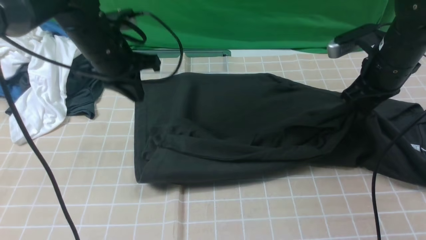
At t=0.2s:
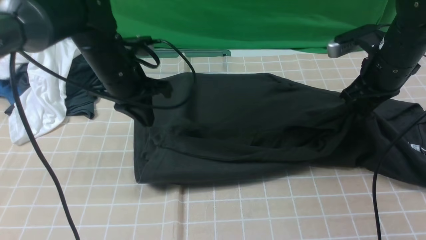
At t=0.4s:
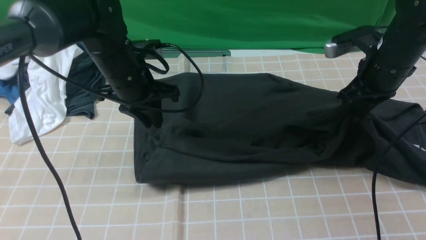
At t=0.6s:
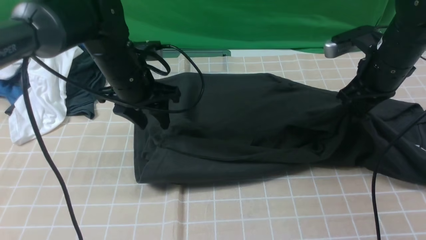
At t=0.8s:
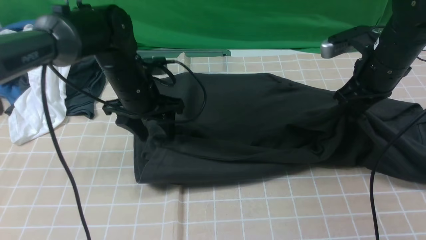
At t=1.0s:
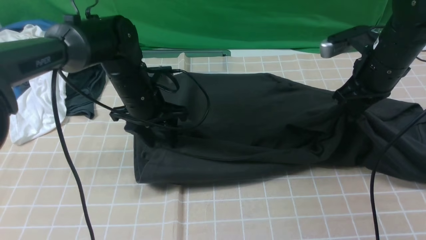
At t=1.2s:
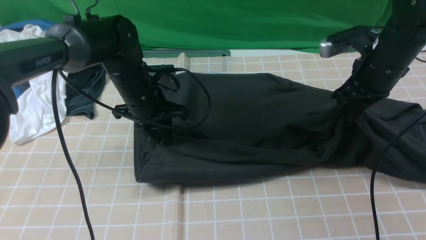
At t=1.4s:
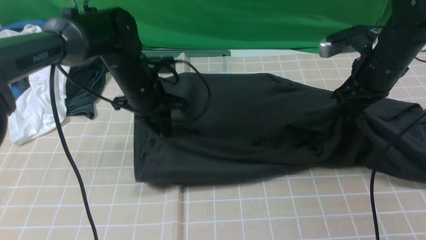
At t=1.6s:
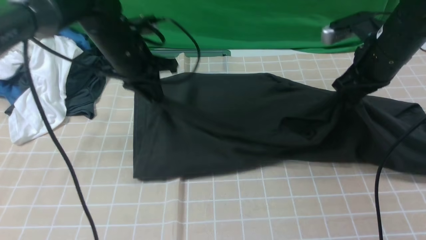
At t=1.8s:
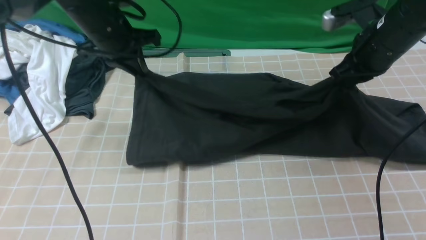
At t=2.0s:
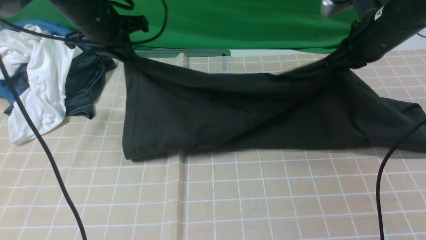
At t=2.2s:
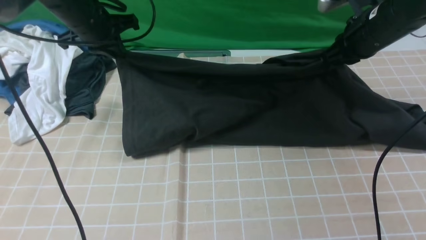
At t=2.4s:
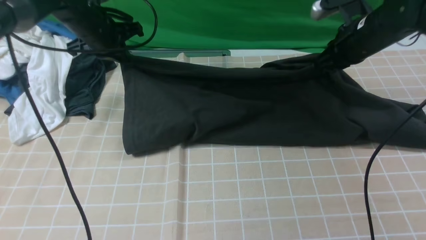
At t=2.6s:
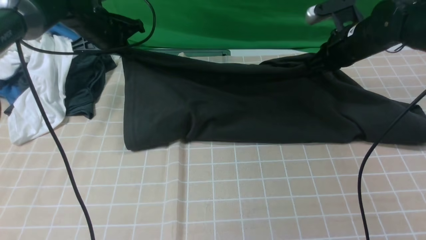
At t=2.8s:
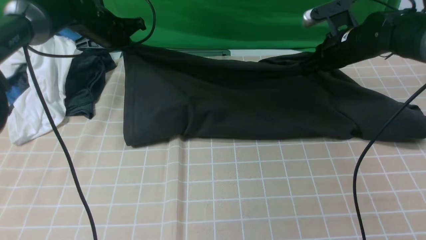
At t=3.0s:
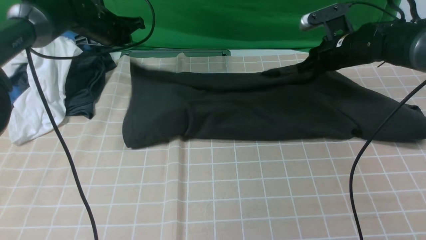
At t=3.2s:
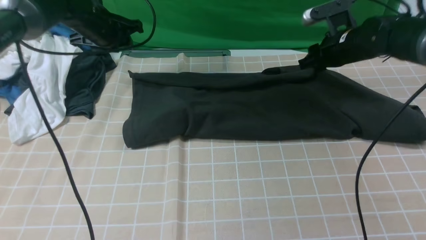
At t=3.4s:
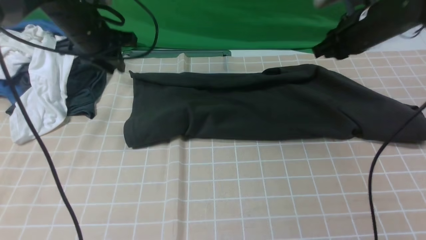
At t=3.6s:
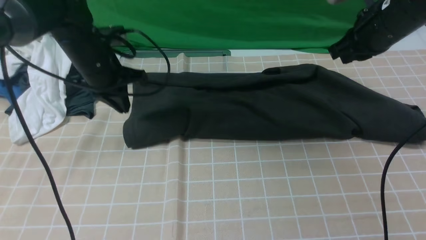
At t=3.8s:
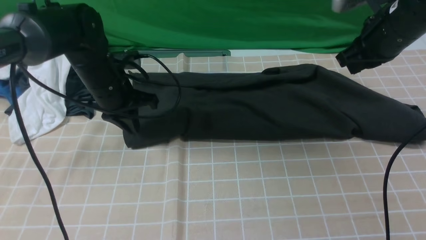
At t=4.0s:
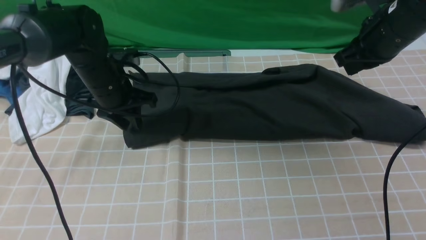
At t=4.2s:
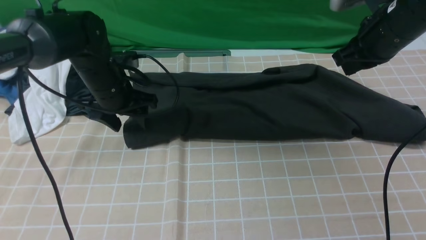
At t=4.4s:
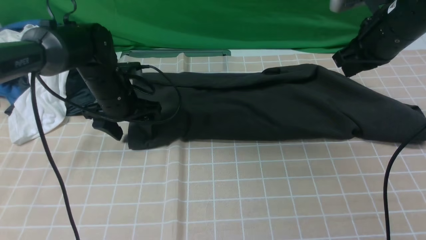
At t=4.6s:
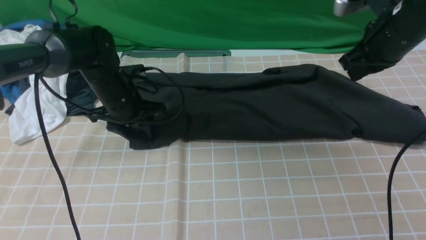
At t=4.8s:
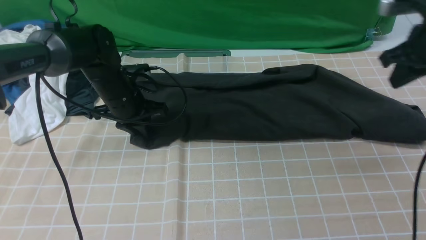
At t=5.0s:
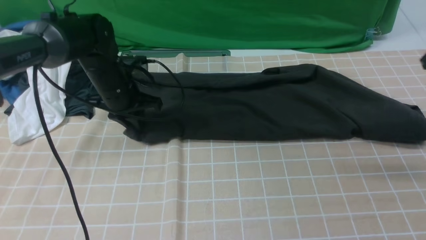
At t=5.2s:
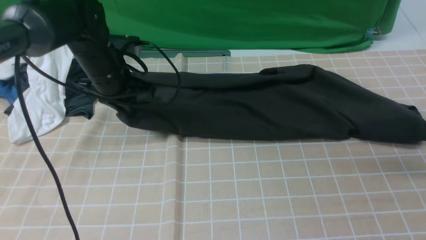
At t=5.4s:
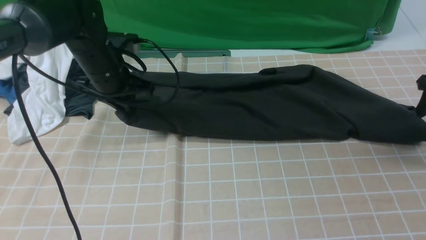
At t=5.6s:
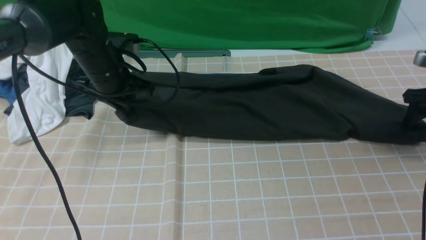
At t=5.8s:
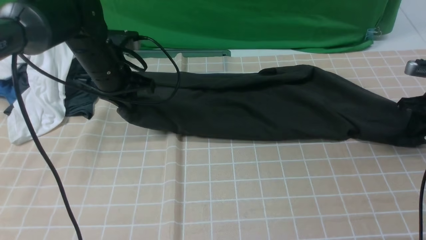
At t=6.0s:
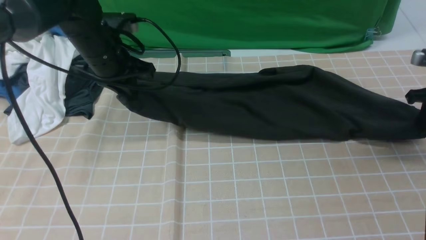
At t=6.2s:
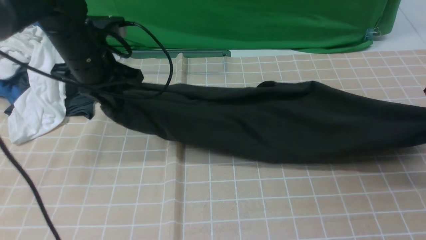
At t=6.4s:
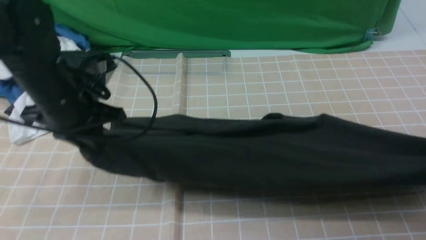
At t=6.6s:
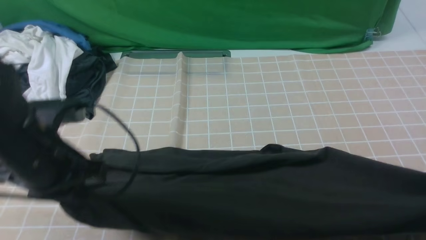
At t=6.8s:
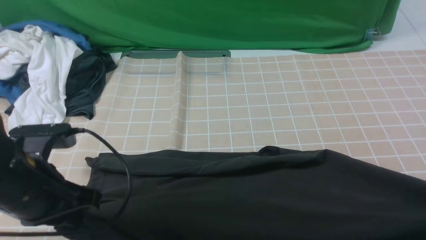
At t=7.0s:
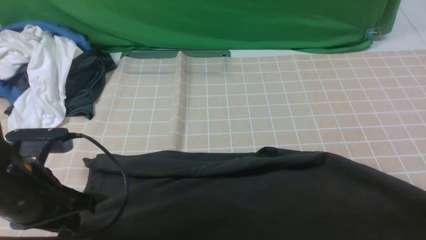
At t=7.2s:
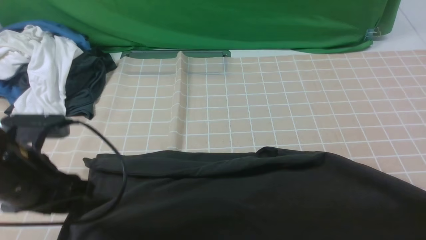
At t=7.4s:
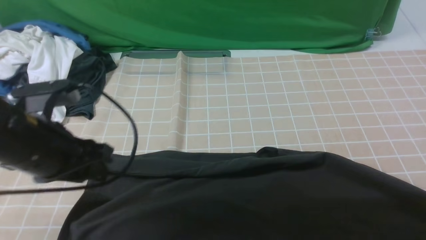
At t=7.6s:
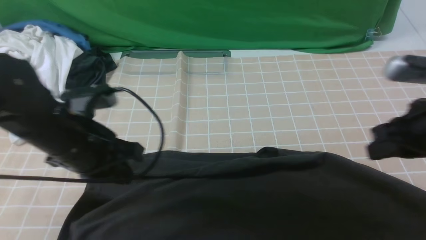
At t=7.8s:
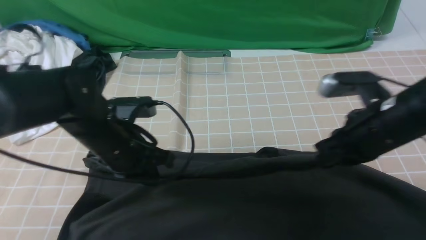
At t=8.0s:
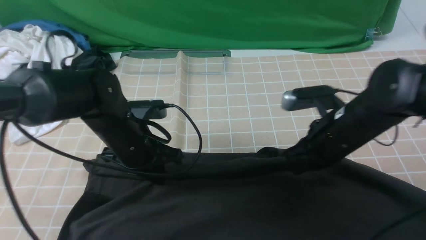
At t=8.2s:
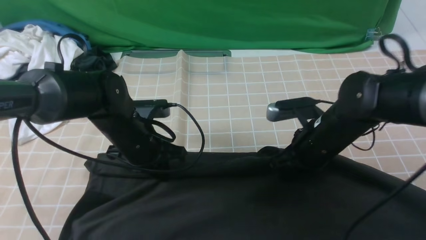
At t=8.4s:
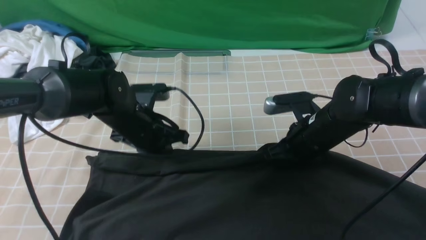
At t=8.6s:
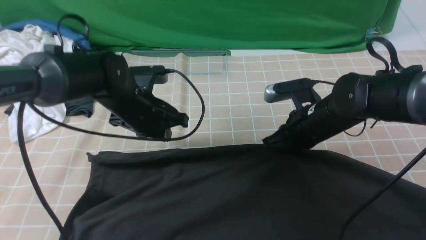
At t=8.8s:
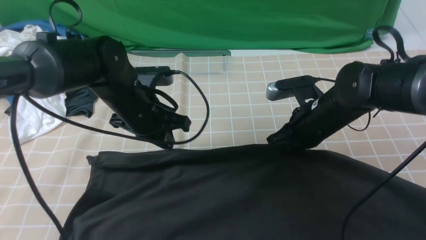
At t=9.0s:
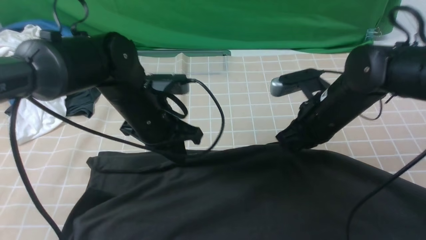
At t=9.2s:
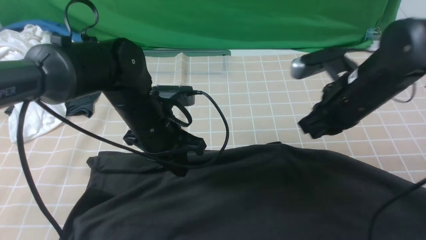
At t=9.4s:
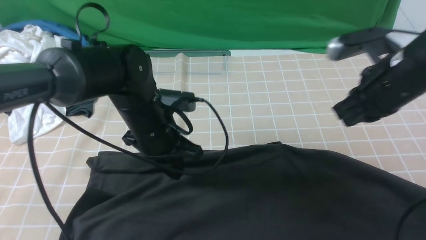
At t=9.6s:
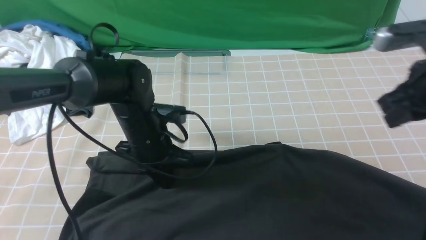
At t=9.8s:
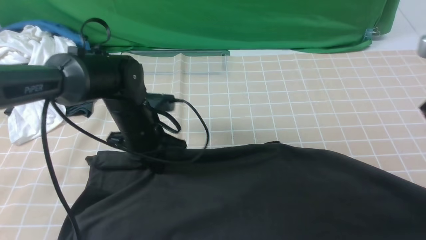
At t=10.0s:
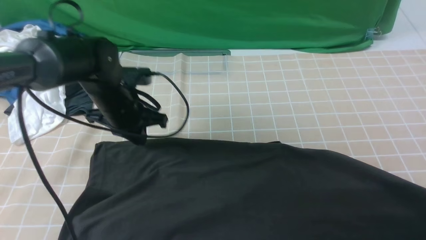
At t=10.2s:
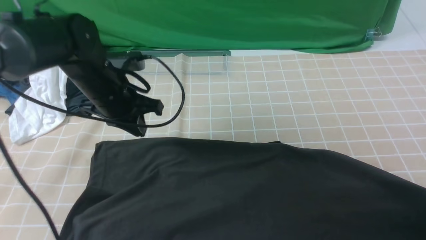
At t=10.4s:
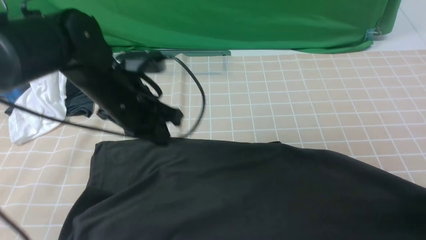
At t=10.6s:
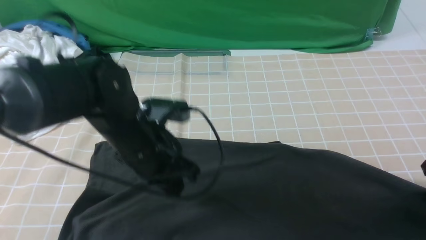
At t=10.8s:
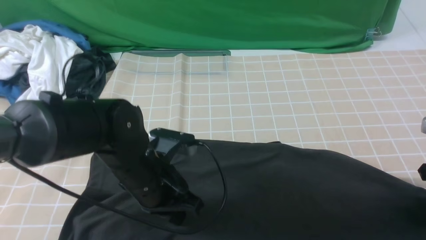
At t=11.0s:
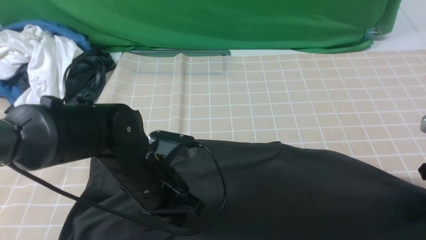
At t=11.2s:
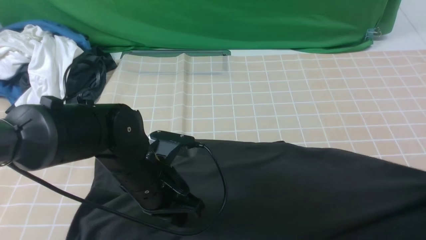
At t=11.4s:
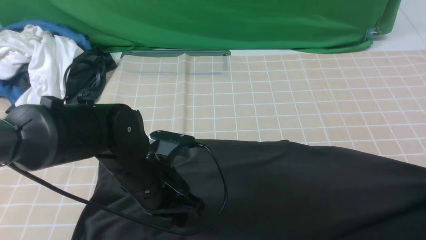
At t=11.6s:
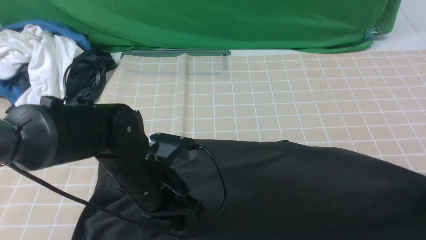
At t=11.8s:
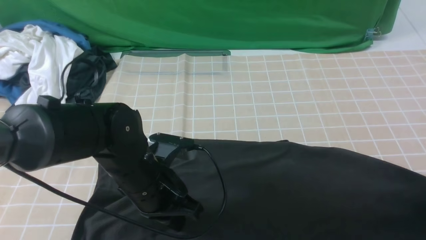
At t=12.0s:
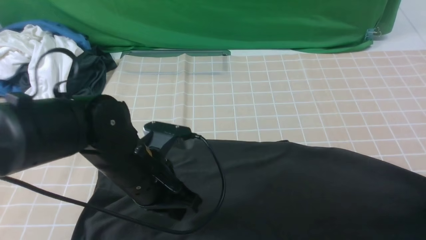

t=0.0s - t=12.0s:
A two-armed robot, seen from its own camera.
Step, t=0.0s - t=3.8s: use both arms to drag the lower edge of the fabric forward and fold it over the upper edge.
t=0.0s - t=1.6s: The left gripper opens, then closes once more.
t=1.6s - t=3.0s: The right gripper moves forward and downward, approximately 10 cm, and opens up. The left gripper moves forward and to the left, roughly 10 cm.
t=3.0s - t=4.4s: The left gripper moves backward and downward, approximately 10 cm, and opens; the right gripper shifts about 15 cm upward and backward, and closes its fingers.
t=4.4s - t=6.0s: The left gripper goes roughly 10 cm upward, and closes up. The right gripper is displaced to the right and downward by about 20 cm, and opens, then closes again.
t=6.0s - t=7.6s: The right gripper travels to the left and backward by roughly 20 cm; the left gripper shifts approximately 15 cm backward, and opens and closes again.
t=7.6s - t=9.0s: The right gripper goes some 10 cm to the left and forward; the left gripper moves to the right and forward, about 10 cm.
t=9.0s - t=10.4s: The right gripper goes some 20 cm to the right and backward, and opens its fingers.
t=10.4s - t=12.0s: The left gripper shifts about 10 cm backward. Meanwhile the right gripper changes place by approximately 5 cm, and closes and opens again.

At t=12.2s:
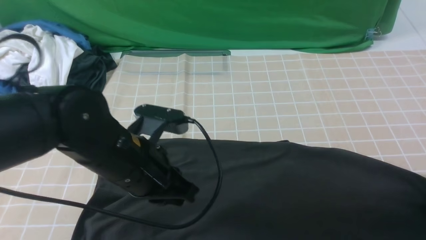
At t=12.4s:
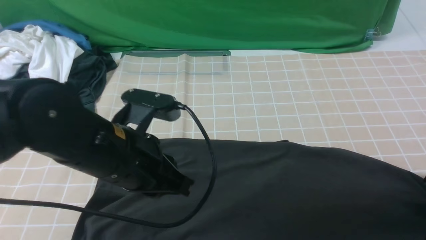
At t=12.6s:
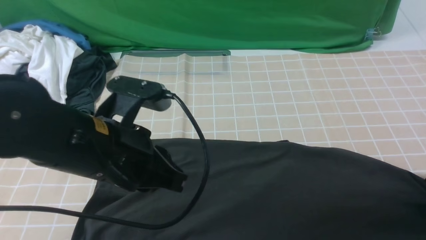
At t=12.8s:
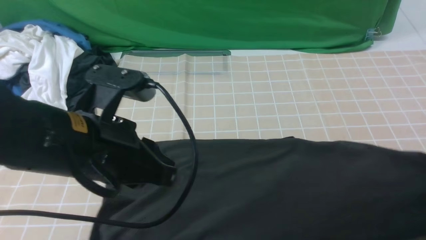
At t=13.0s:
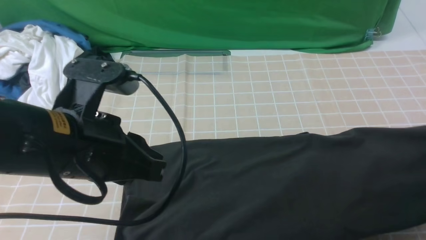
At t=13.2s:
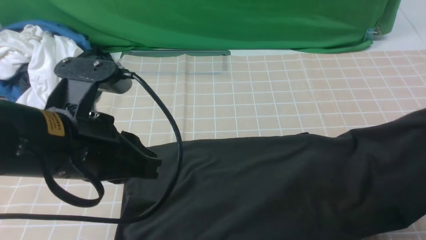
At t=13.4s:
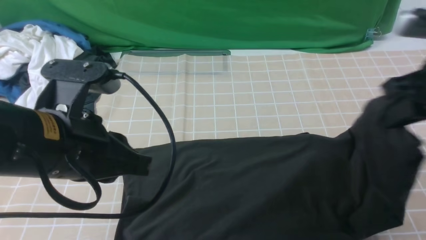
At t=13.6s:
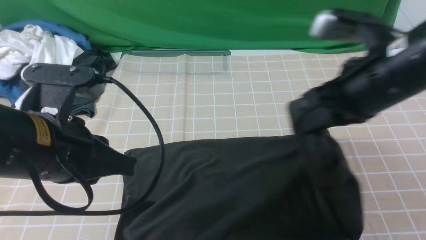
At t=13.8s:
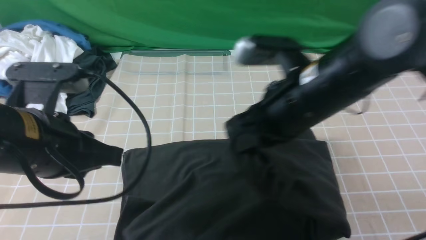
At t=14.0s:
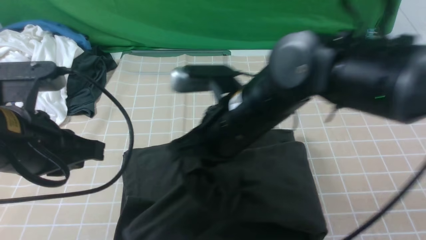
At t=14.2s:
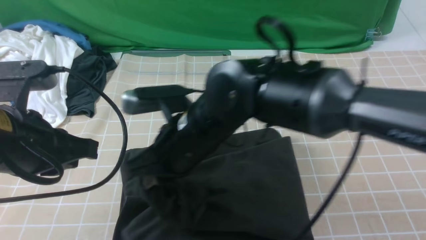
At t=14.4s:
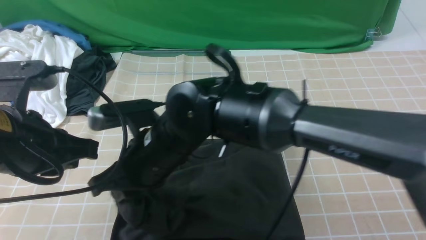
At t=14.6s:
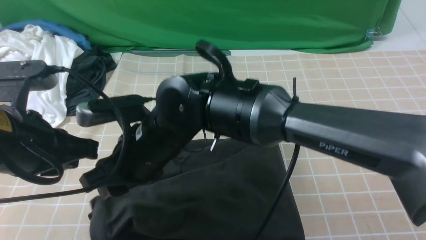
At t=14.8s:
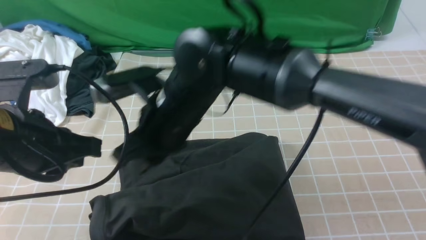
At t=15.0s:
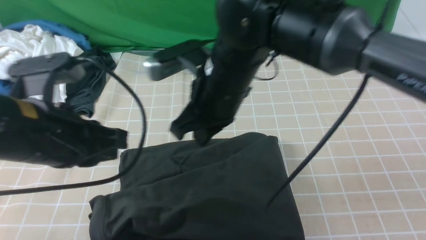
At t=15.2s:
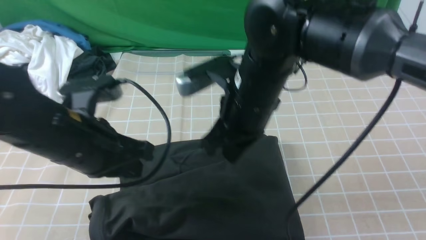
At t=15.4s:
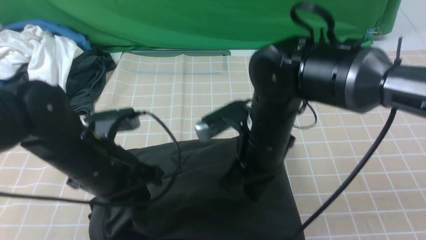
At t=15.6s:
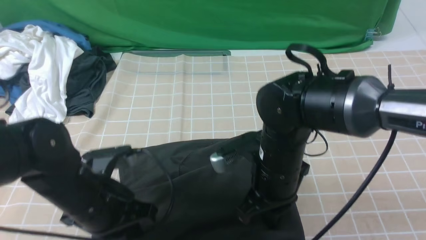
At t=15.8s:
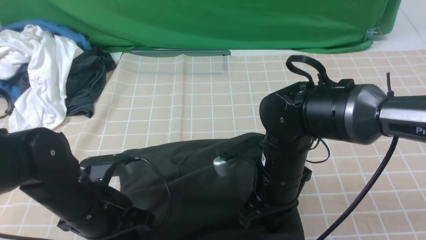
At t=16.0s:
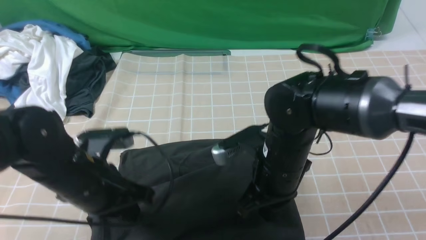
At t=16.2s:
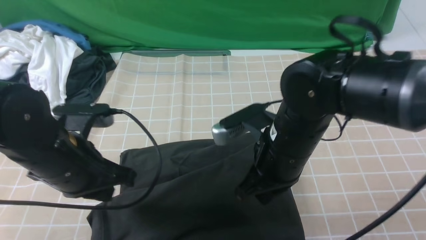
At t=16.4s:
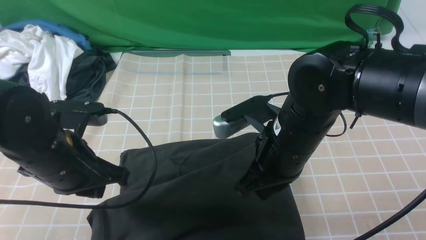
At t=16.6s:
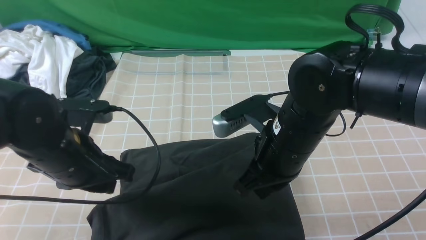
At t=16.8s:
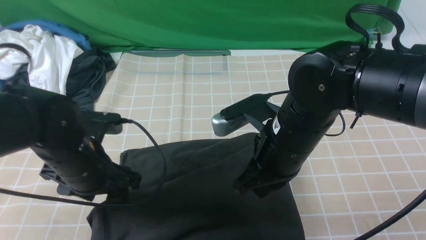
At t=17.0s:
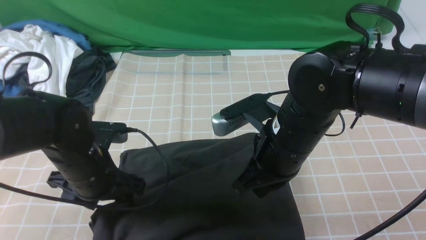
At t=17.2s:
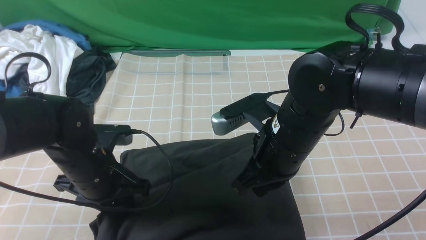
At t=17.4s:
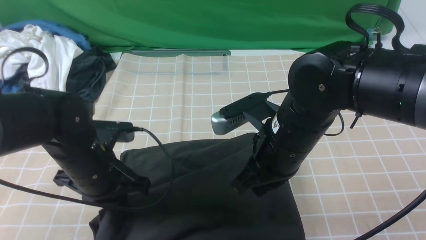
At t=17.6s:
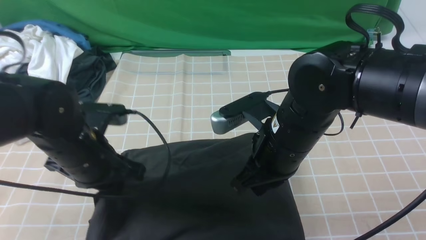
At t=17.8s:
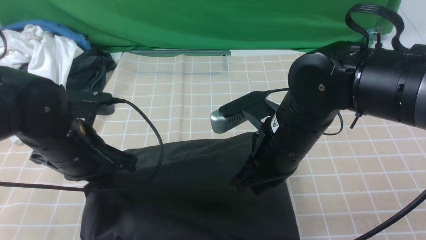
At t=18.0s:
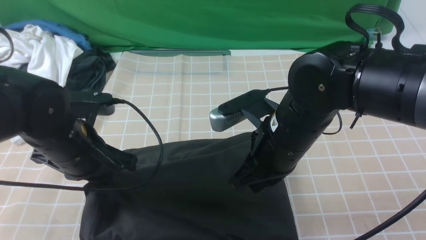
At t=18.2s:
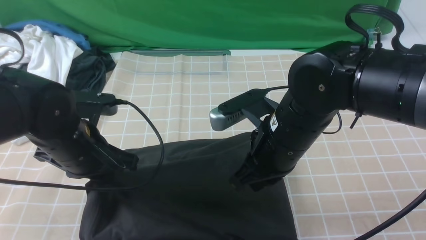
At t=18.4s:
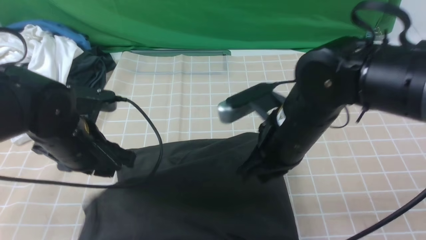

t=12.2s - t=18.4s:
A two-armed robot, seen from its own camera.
Step, t=12.8s - t=14.6s: use the right arm to drag the right edge of the fabric to the left and folds it over the left edge.
t=12.2s - t=13.8s: The left gripper shifts some 10 cm to the left and upward; the right gripper shifts approximately 35 cm to the left and upward, and closes up.
t=13.8s - t=15.4s: Both grippers move downward, roughly 10 cm. The right gripper goes to the left and returns, about 15 cm each way, and opens, then closes once more.
t=15.4s - t=16.8s: The left gripper opens.
t=16.8s - t=18.4s: The left gripper closes.
